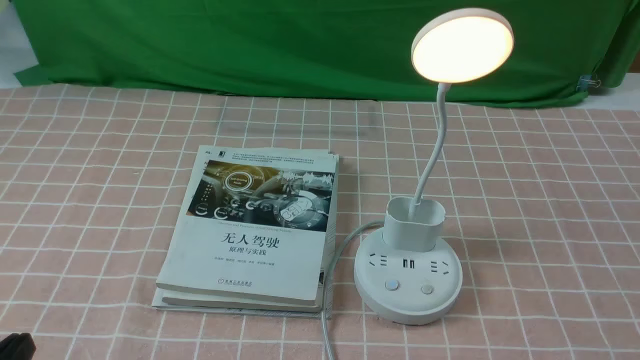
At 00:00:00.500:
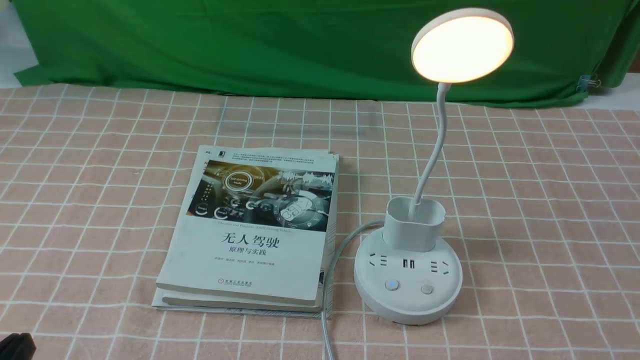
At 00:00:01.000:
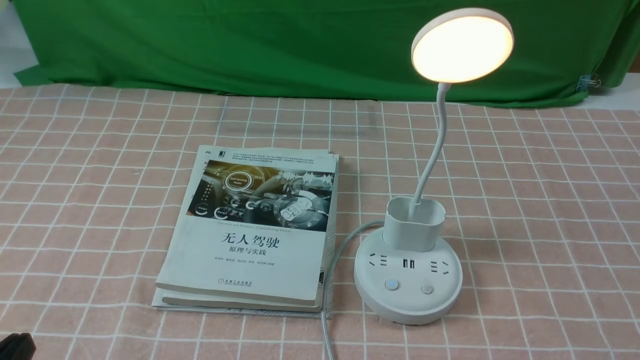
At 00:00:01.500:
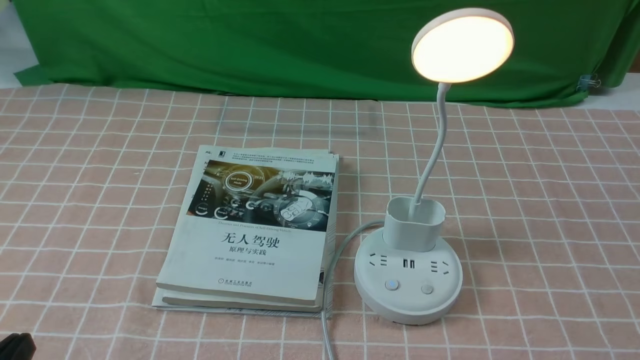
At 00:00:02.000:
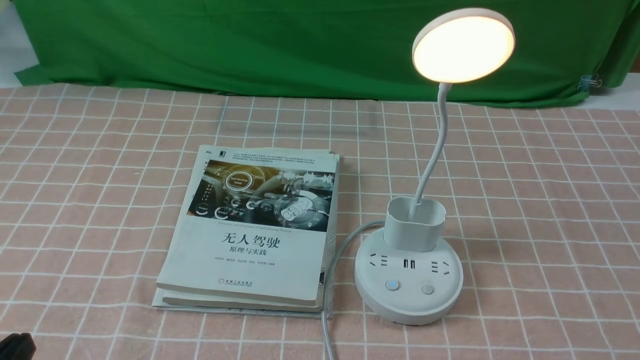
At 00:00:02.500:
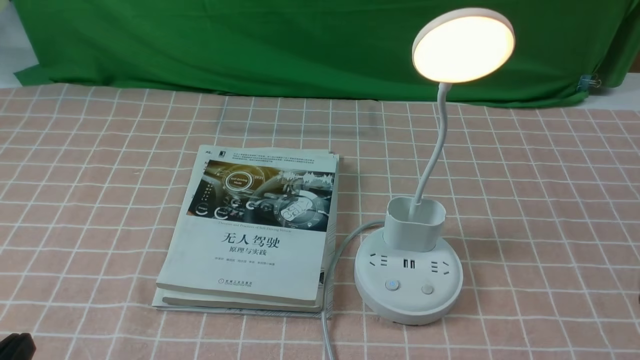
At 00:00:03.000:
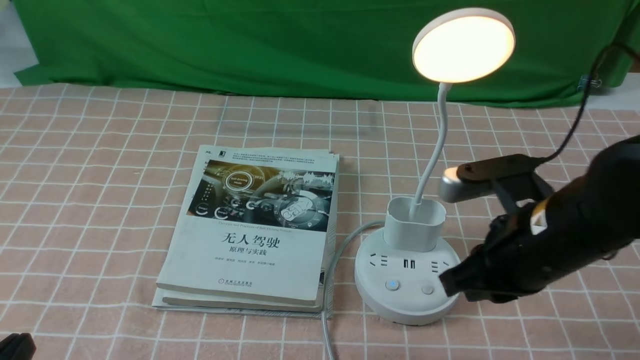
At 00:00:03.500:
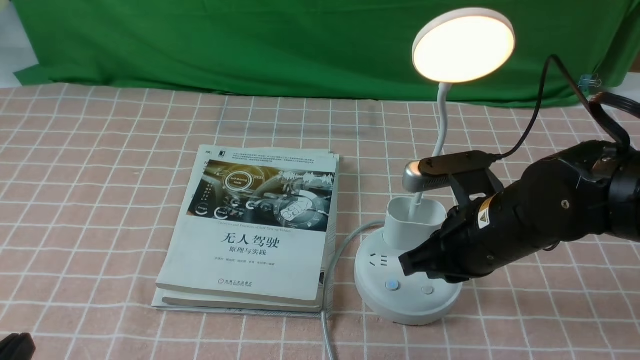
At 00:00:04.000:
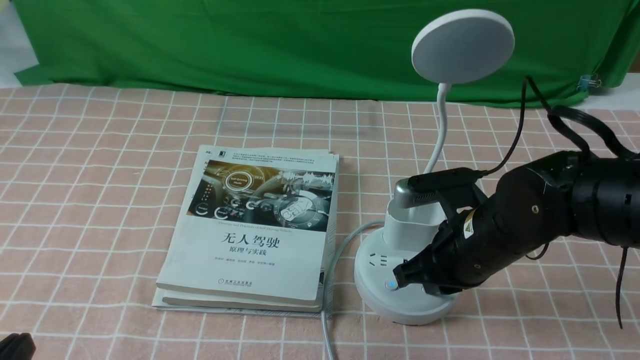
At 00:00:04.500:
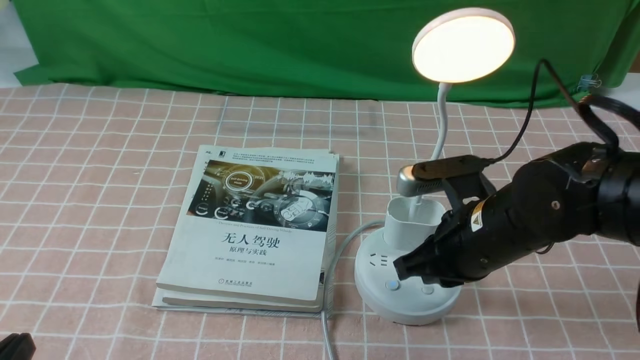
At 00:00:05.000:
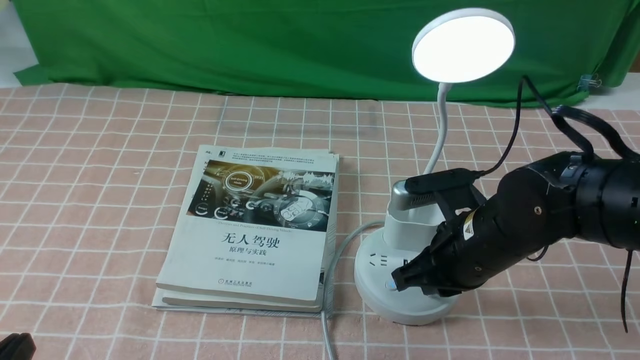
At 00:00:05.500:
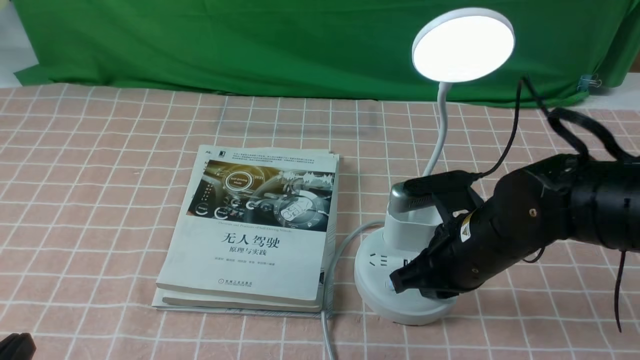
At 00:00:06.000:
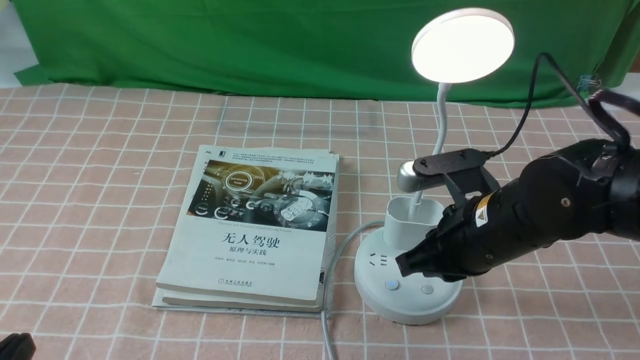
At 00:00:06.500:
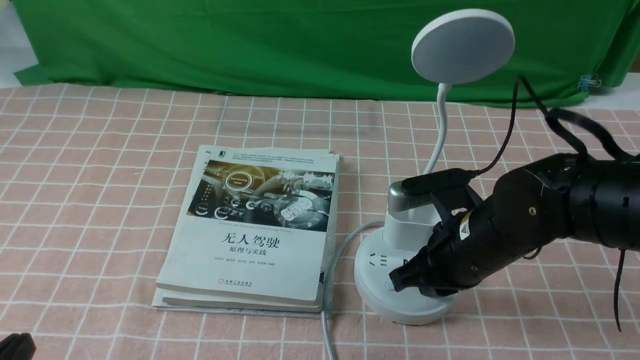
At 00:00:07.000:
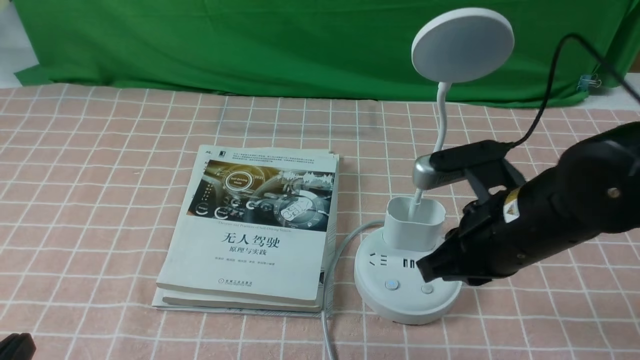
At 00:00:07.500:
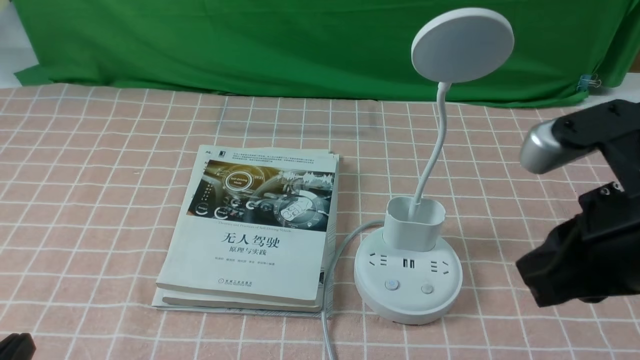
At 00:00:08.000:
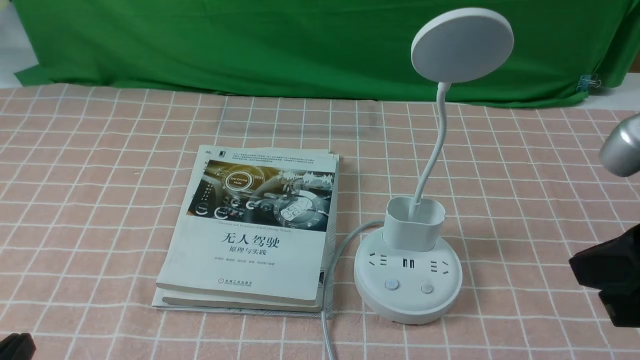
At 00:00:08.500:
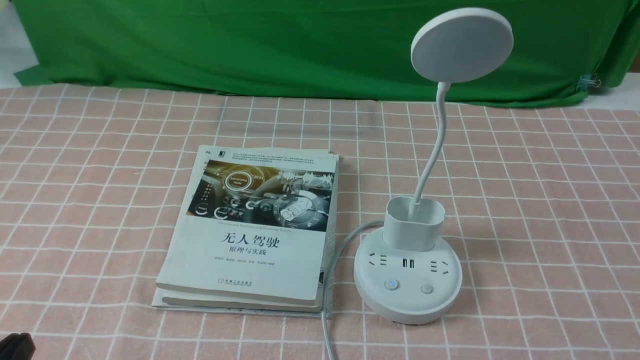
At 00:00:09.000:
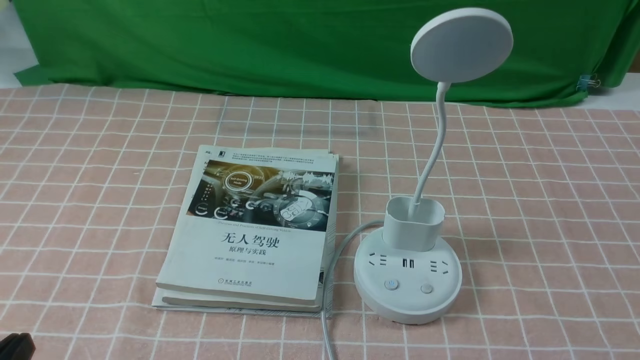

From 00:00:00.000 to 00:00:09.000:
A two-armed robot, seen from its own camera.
Task of the whole recording: turn off the table lamp on the pink coffee tablecloth by hand.
Step, from 00:00:00.000 to 00:00:06.500: use the right arm to press the button switch on the lamp holder.
From 00:00:02.000 to 00:00:04.500: The right gripper heads forward and to the left, covering some 30 cm, and closes up.
From 00:00:04.500 to 00:00:07.000: The right gripper is displaced upward by roughly 5 cm.
From 00:00:07.000 to 00:00:09.000: The right gripper moves backward and to the right, some 25 cm.

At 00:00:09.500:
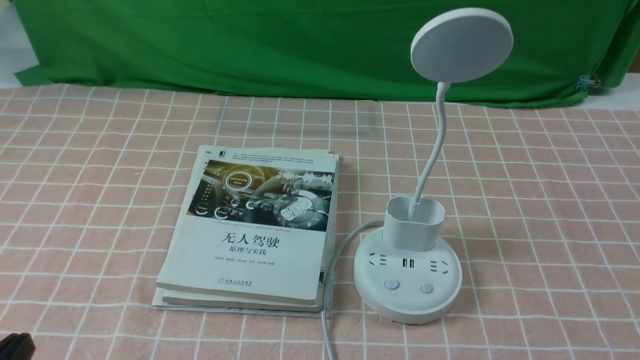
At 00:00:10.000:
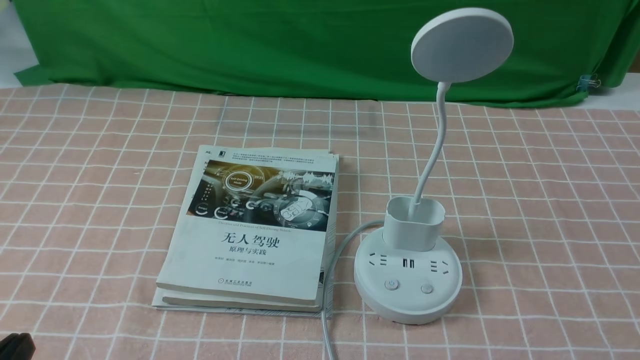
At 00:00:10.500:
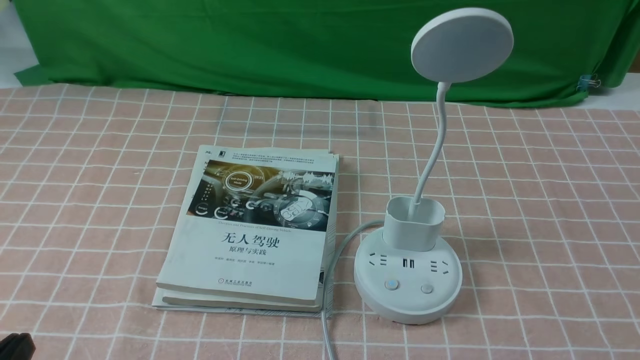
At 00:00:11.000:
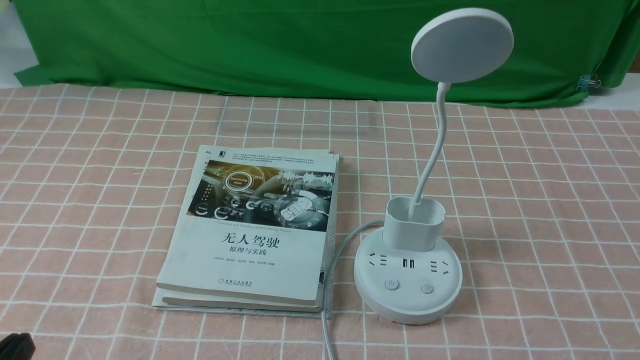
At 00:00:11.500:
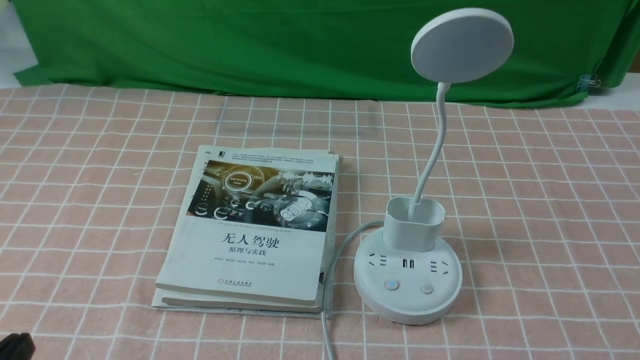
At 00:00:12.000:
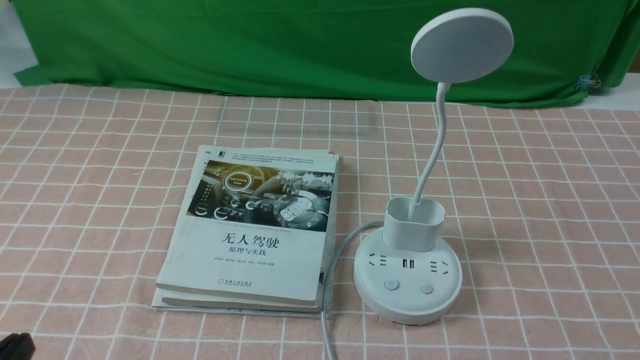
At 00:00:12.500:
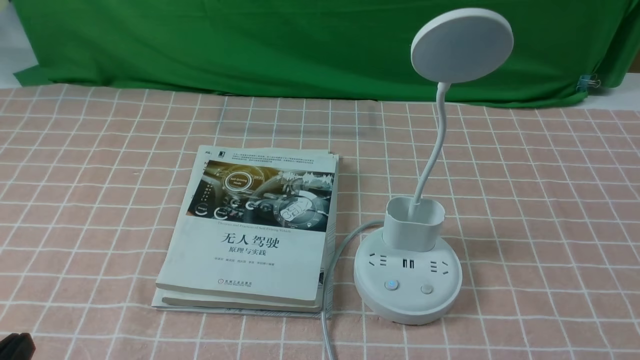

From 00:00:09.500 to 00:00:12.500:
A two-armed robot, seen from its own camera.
Task of the whole recording: turn off the table lamp on the pink coffee tablecloth by hand.
From 00:00:09.500 to 00:00:11.000: Both grippers stay about where they are.
